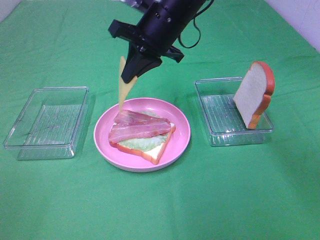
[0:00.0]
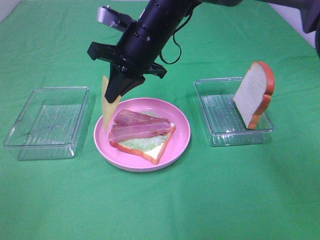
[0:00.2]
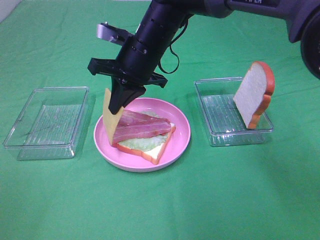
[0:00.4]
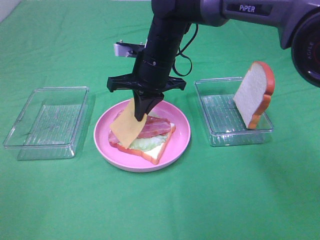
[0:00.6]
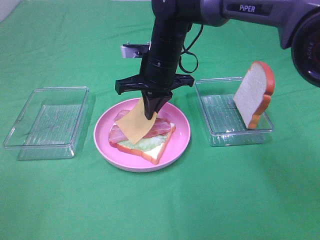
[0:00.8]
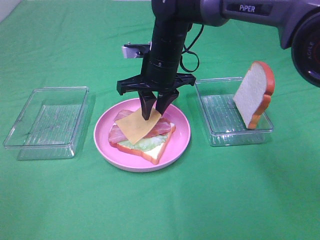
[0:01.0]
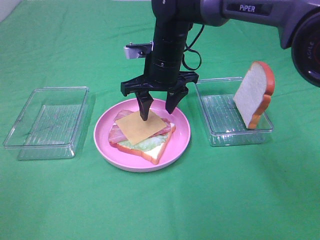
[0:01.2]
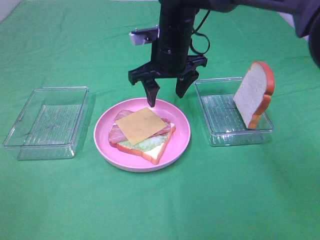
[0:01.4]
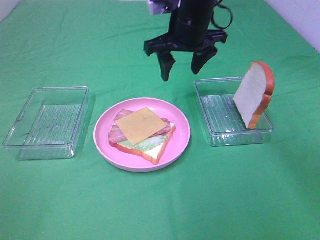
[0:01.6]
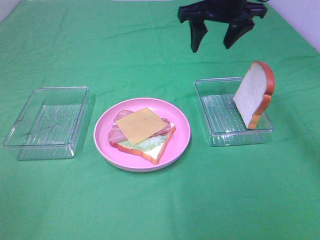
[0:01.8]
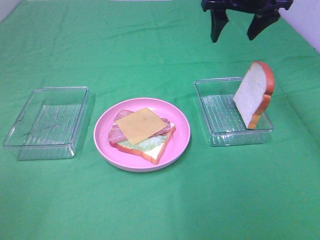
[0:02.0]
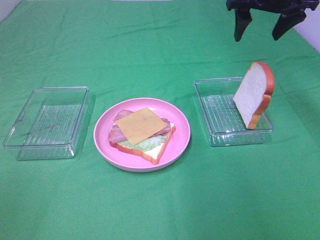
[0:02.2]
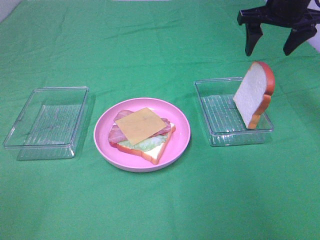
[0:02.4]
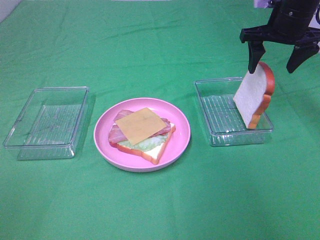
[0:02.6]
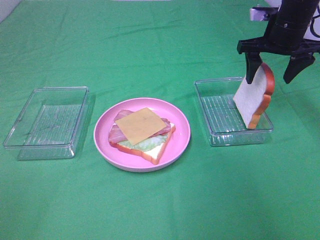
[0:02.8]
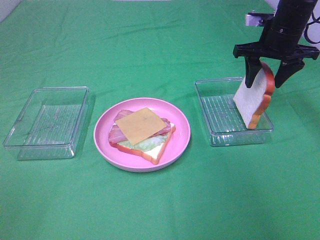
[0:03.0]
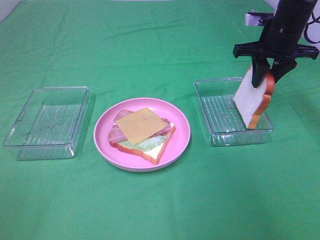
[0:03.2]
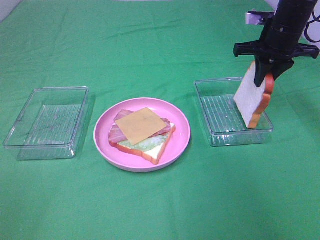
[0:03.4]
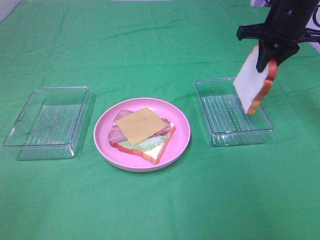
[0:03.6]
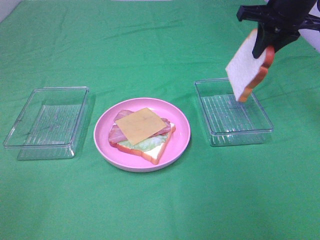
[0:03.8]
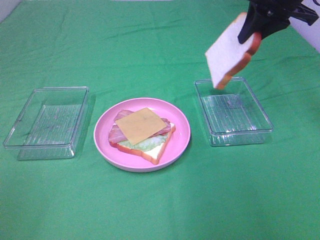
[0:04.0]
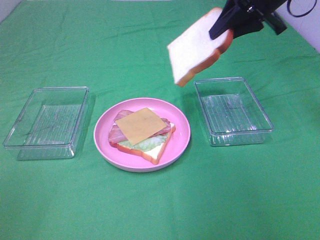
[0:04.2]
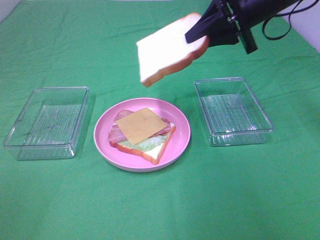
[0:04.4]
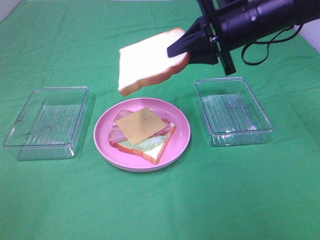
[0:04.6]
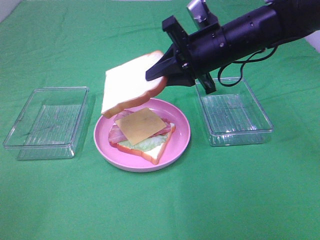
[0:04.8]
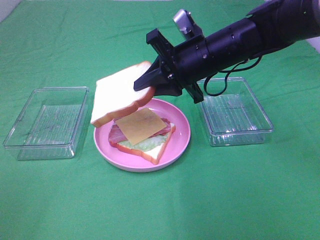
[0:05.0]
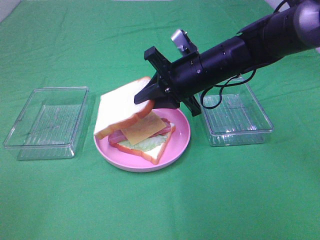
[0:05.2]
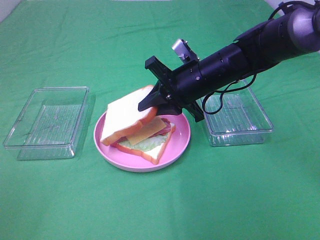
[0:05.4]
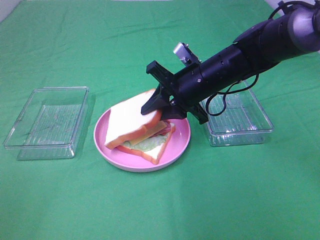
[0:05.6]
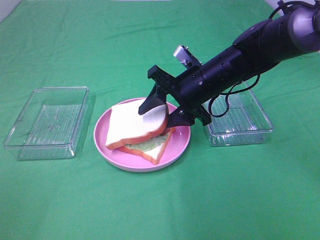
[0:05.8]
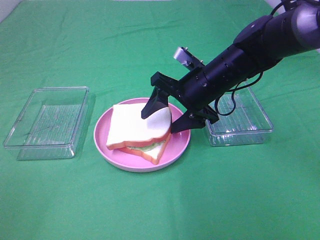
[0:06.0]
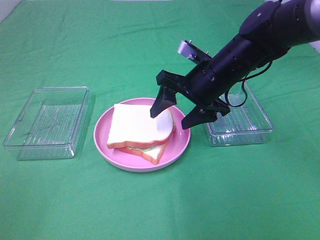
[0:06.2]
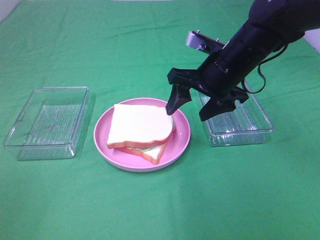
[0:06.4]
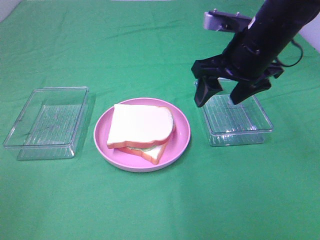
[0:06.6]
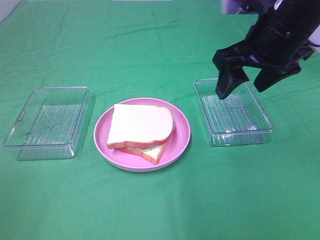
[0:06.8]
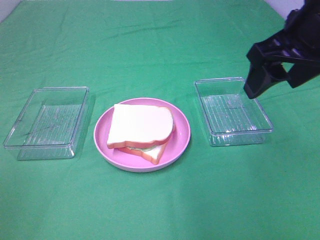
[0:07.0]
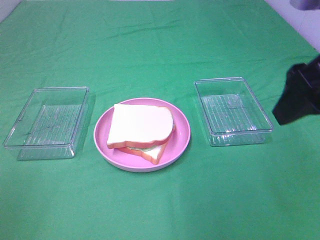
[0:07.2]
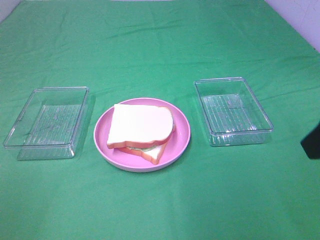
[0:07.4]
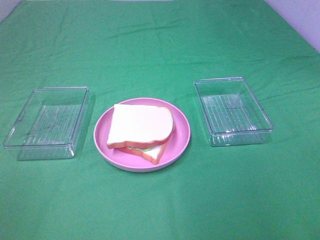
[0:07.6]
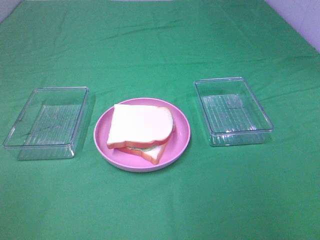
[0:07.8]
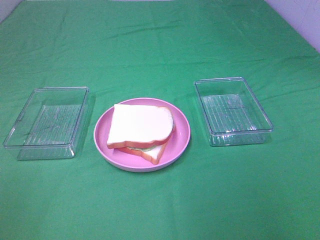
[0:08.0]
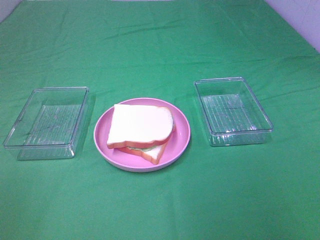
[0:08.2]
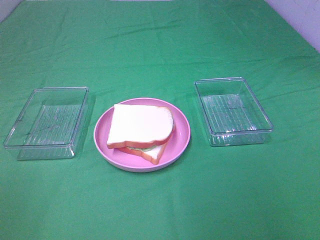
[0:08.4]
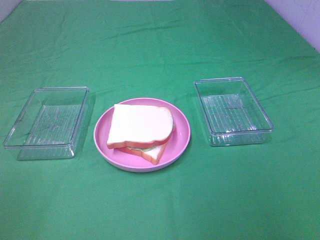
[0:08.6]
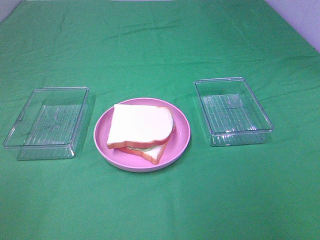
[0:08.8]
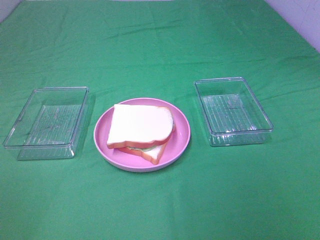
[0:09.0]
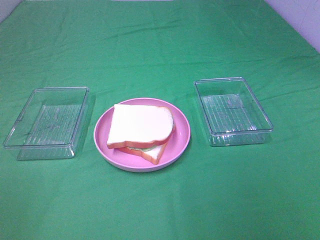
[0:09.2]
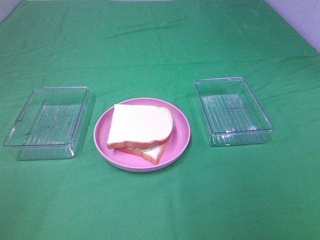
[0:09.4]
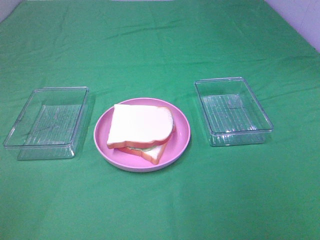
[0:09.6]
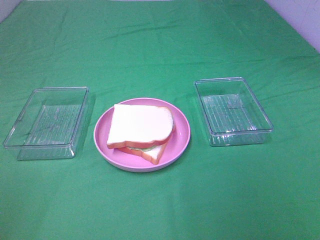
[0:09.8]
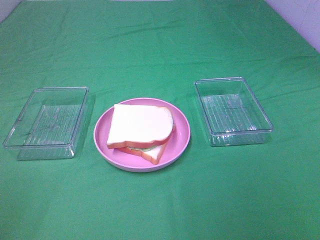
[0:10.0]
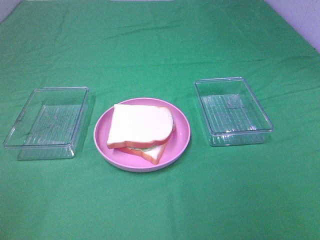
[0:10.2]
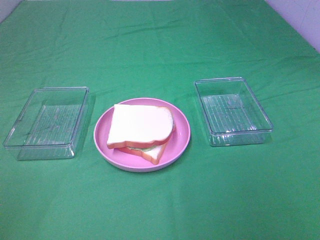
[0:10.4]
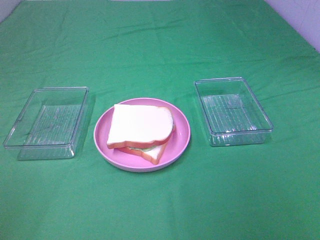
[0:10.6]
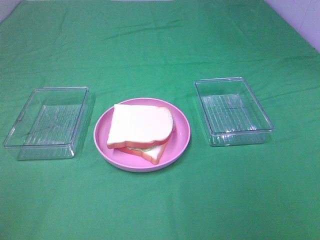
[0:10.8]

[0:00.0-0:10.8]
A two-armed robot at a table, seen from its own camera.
Task of the whole recording: Make sandwiches.
Step, 0:00.0 to 0:01.0: Right hand:place the cheese slice on top of the bacon.
Step, 0:01.2 to 0:03.2: Right hand:grab the bread slice.
Step, 0:03.4 to 0:06.2: Right hand:place the bread slice on the cheese slice.
0:00.0 to 0:01.6: The right gripper ends up approximately 5 cm from where it was, and opens.
0:01.6 to 0:03.0: The right gripper is displaced to the right by some 15 cm.
0:03.0 to 0:04.6: The right gripper goes approximately 10 cm to the left and backward, moves approximately 10 cm upward and comes back, and closes its fingers.
0:04.6 to 0:06.2: The right gripper moves downward, about 5 cm, and opens.
0:06.2 to 0:07.8: The right gripper goes about 35 cm backward, to the right and upward.

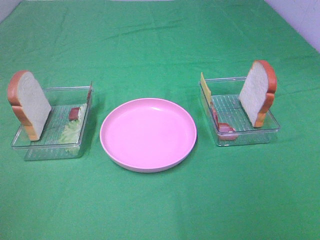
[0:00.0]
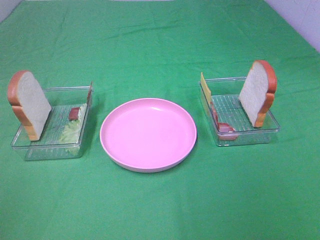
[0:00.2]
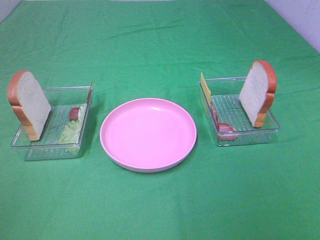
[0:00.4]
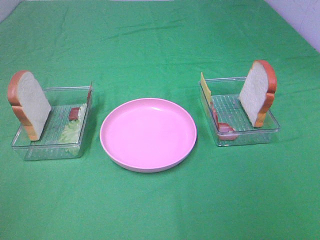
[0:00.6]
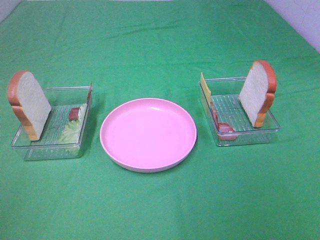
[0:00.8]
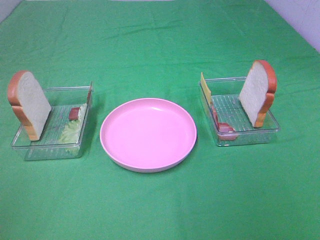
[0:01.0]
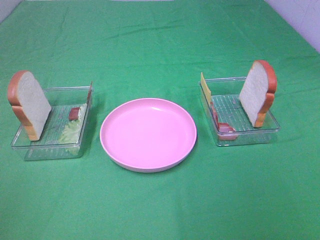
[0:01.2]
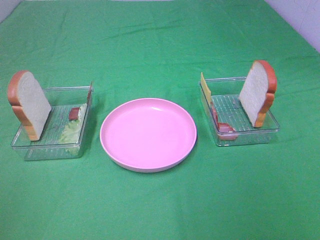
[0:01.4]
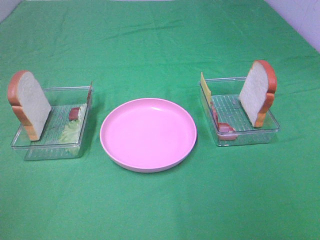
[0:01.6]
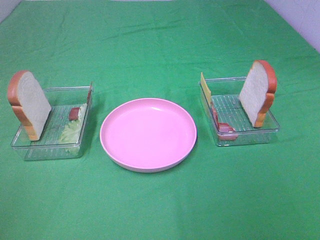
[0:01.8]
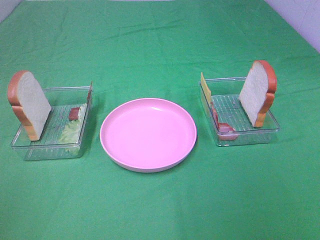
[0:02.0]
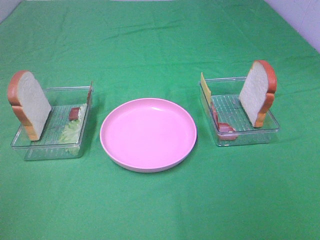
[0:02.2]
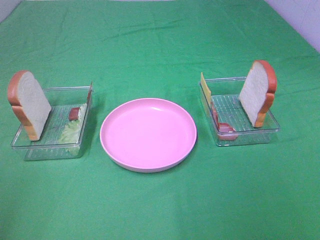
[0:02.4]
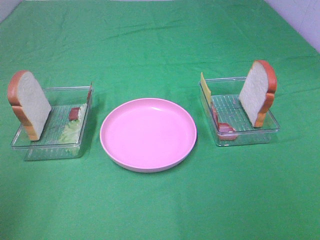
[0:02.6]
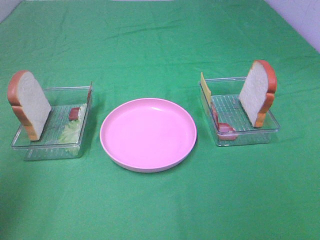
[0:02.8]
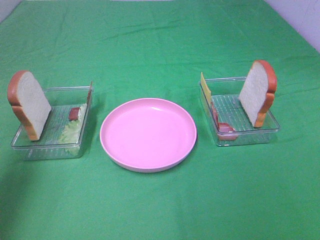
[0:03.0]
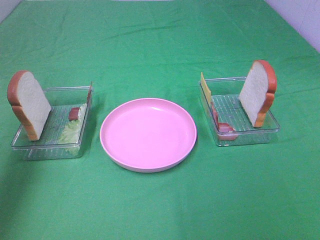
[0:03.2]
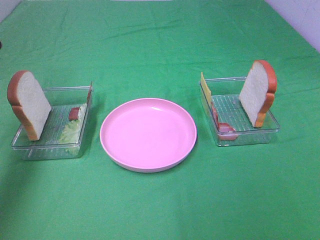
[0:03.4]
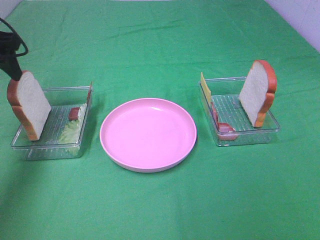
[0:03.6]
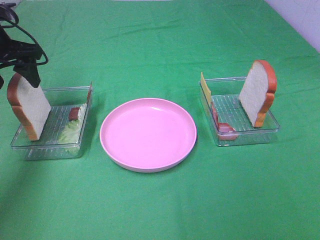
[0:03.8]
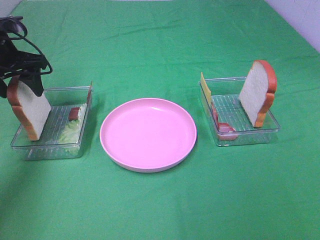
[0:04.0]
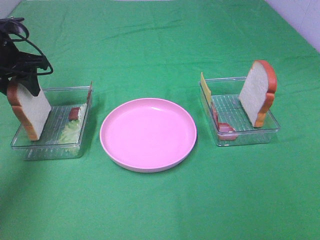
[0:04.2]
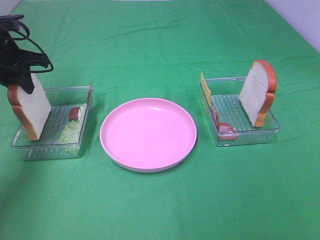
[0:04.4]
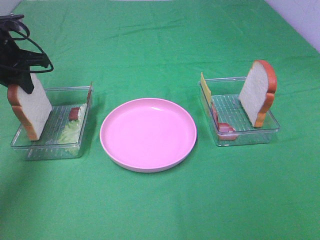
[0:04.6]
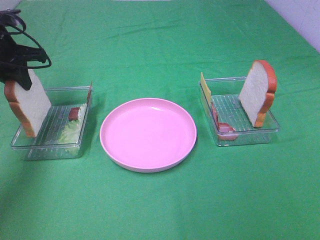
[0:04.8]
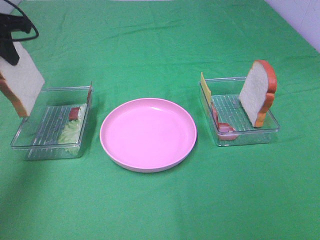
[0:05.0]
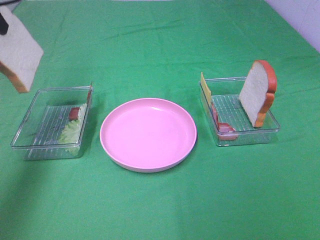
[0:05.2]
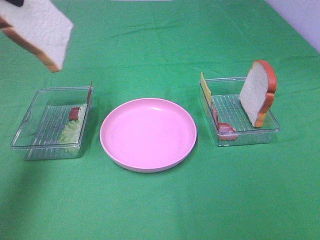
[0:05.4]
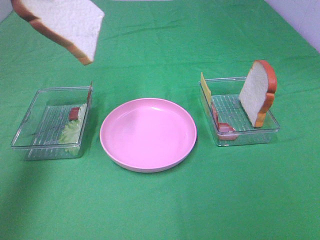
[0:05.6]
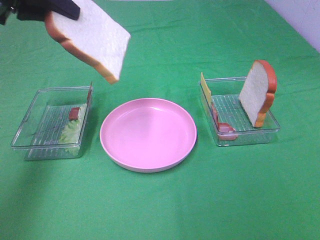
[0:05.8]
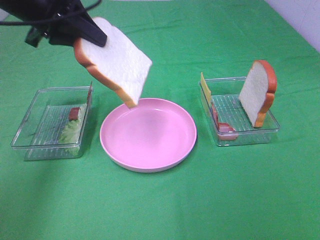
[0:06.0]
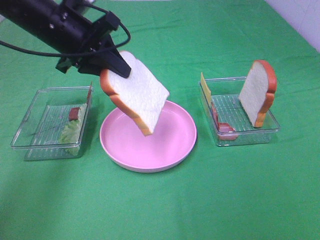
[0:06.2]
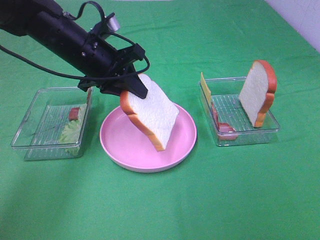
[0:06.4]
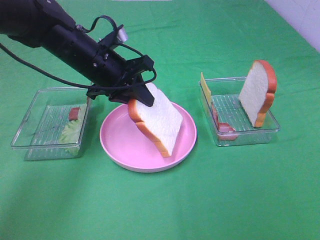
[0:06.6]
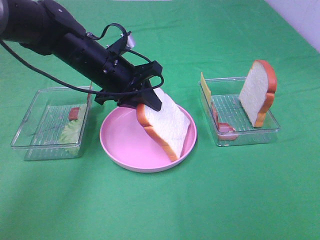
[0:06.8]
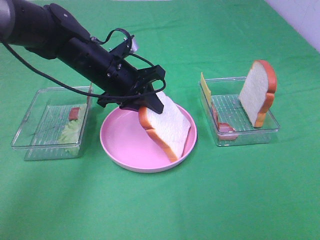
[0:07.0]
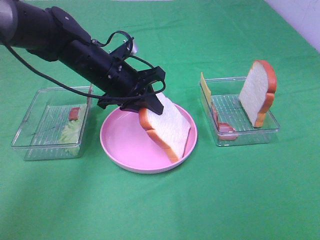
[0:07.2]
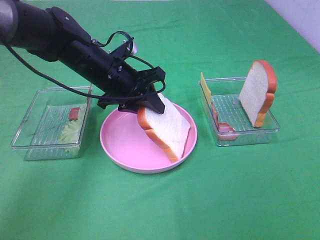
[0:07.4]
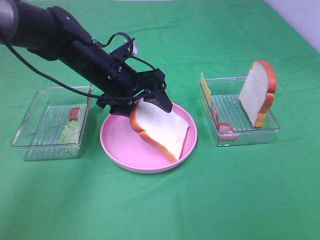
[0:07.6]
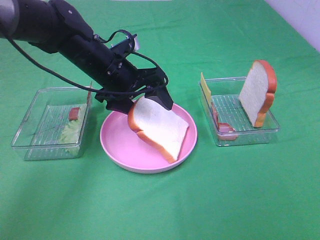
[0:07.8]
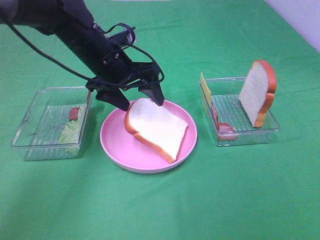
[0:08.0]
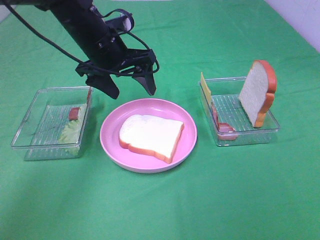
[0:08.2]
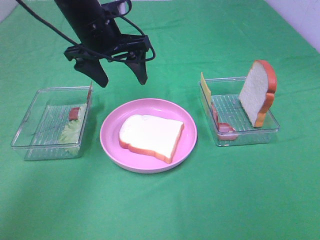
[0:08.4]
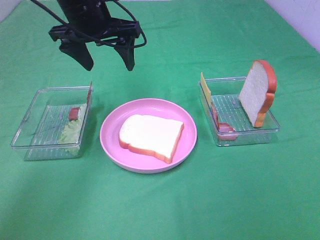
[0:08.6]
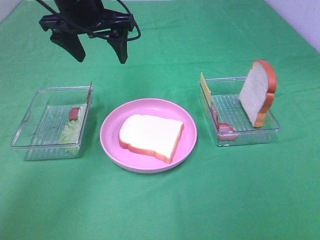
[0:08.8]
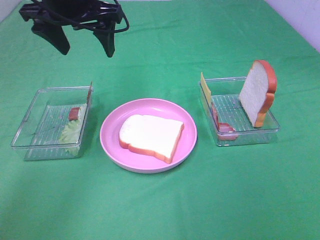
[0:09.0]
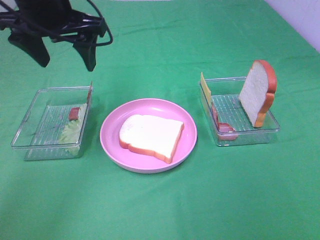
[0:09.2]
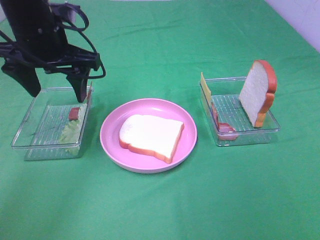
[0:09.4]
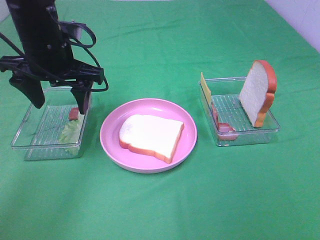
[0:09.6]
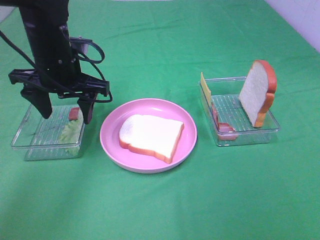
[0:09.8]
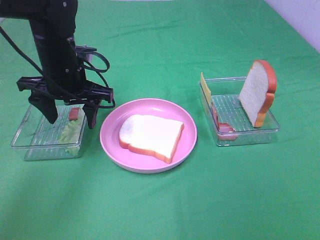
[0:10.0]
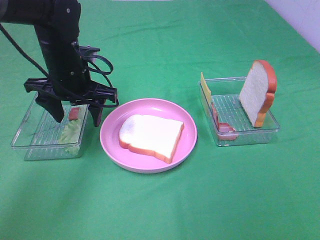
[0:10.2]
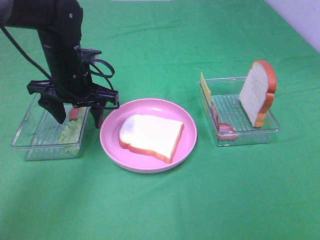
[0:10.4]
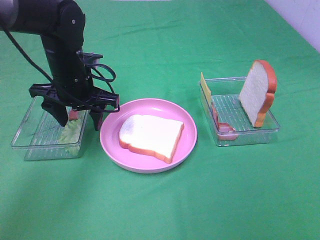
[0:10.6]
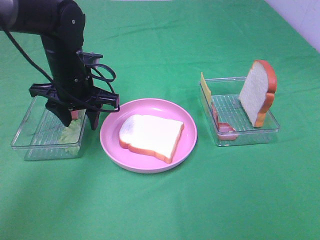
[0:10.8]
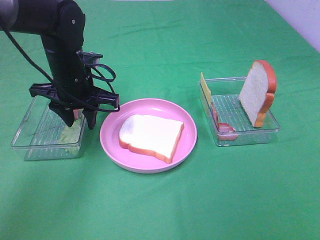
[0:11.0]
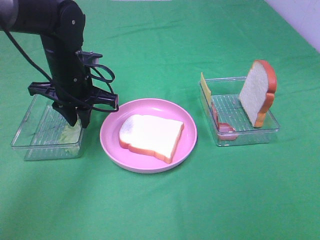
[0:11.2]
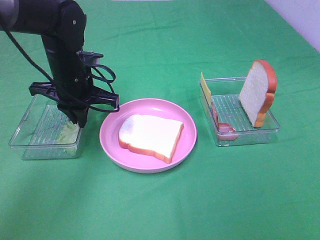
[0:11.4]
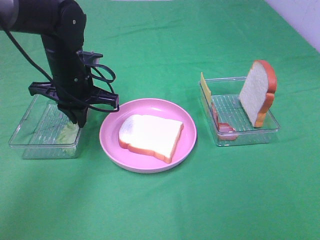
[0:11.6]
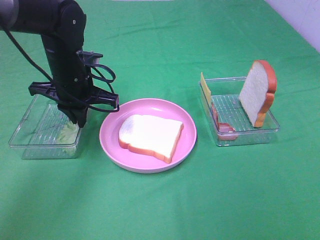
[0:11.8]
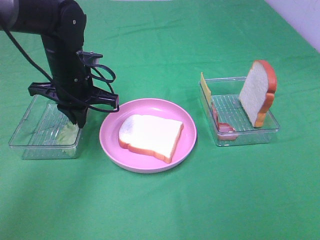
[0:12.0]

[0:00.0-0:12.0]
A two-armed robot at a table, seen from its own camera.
Task of the whole recording: Make sandwiches.
Step, 0:00.0 to 0:04.8: Left hand:grab the bread slice.
Step, 0:05.0 to 0:08.2: Left hand:place the bread slice on the plate.
0:00.0 to 0:01.6: Both grippers stay put.
0:01.6 to 0:03.0: The left gripper goes approximately 20 cm forward.
0:03.0 to 0:04.4: The left gripper goes approximately 25 cm forward and downward, and closes its fingers.
0:04.4 to 0:06.0: The left gripper travels to the right and upward by some 15 cm.
0:06.0 to 0:07.6: The left gripper is displaced downward and to the right by approximately 15 cm, and opens.
0:07.6 to 0:09.0: The left gripper goes roughly 15 cm upward.
0:09.0 to 0:10.4: The left gripper goes some 15 cm downward.
0:10.4 to 0:12.0: The left gripper closes.
